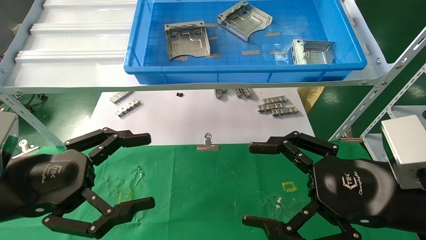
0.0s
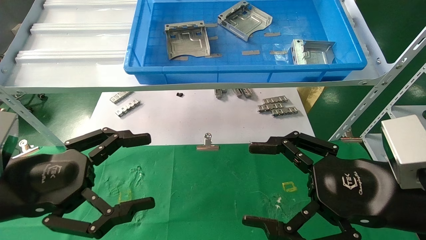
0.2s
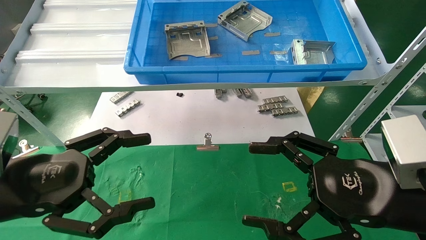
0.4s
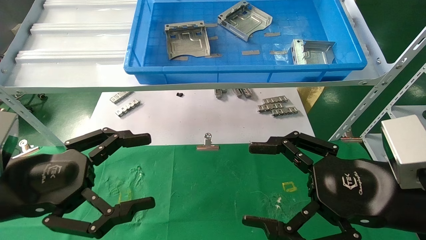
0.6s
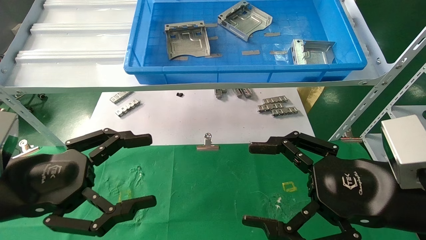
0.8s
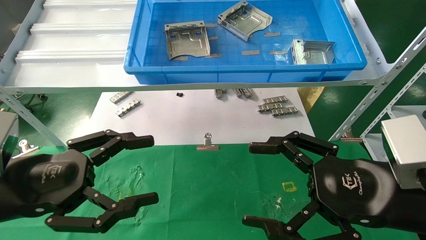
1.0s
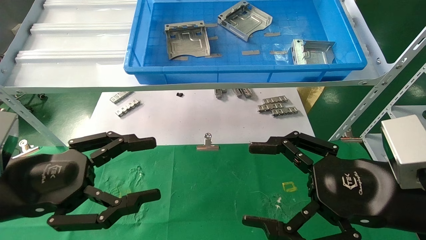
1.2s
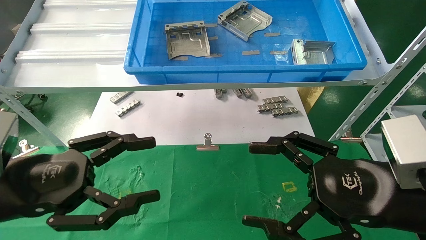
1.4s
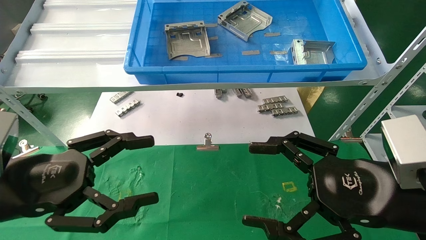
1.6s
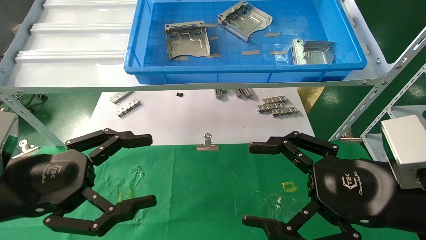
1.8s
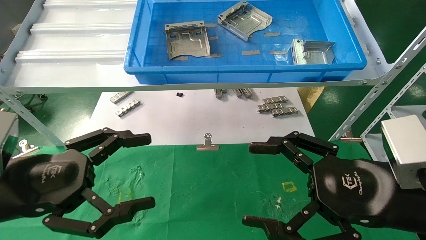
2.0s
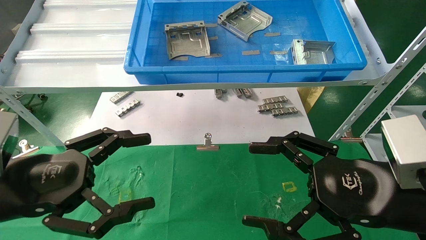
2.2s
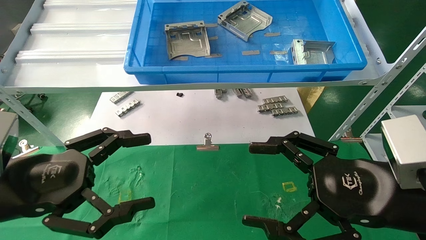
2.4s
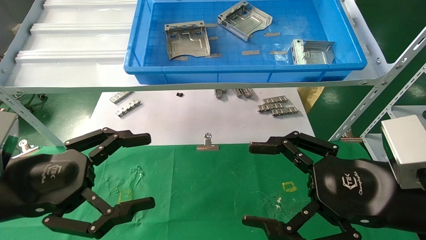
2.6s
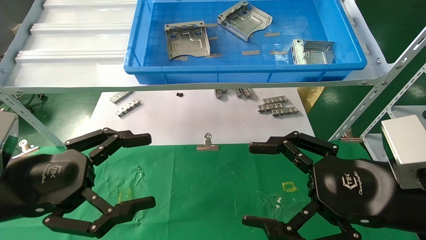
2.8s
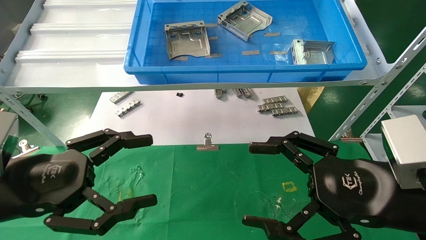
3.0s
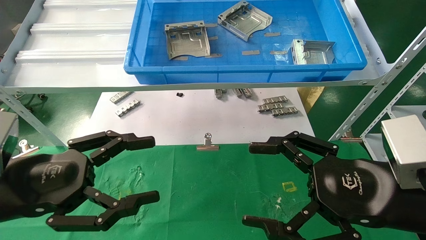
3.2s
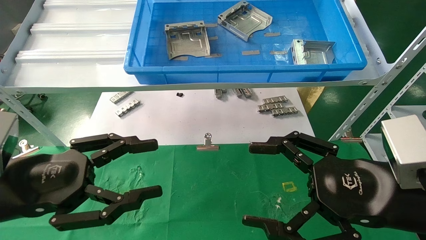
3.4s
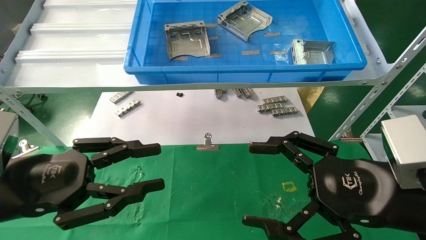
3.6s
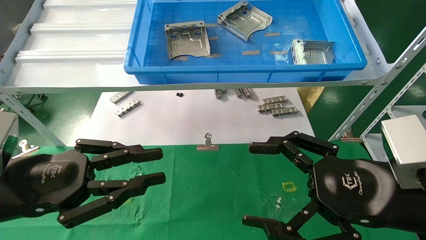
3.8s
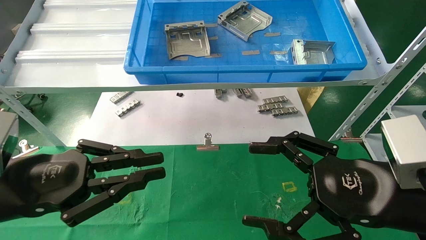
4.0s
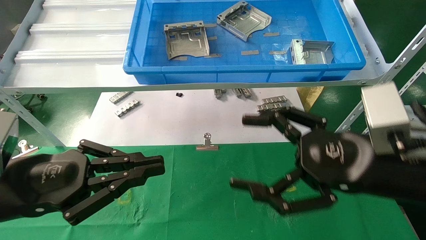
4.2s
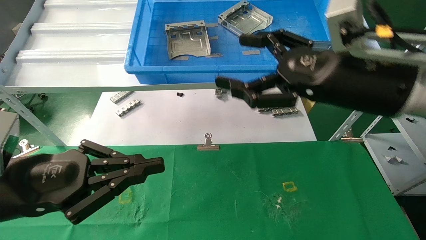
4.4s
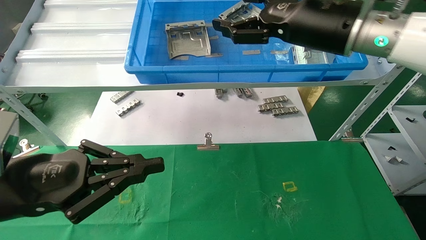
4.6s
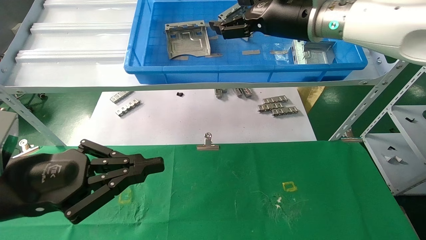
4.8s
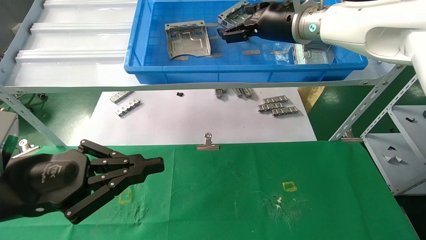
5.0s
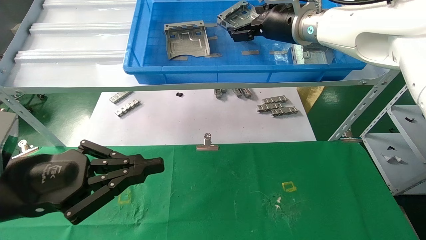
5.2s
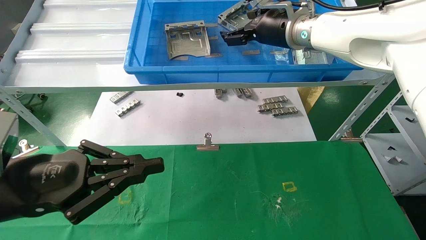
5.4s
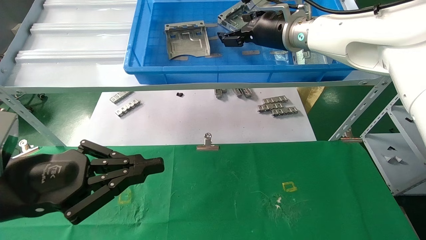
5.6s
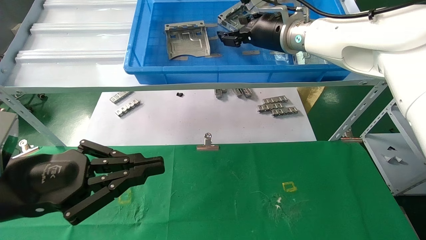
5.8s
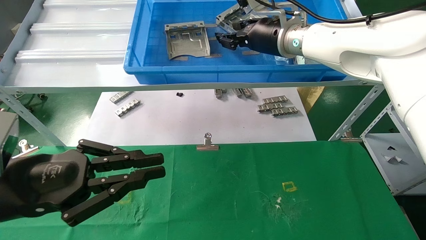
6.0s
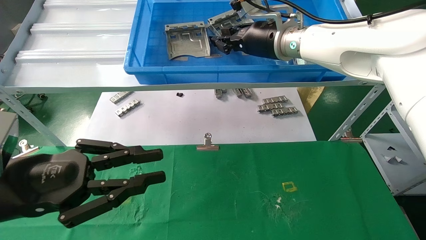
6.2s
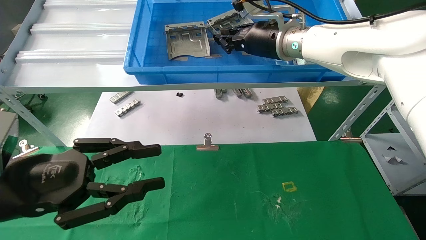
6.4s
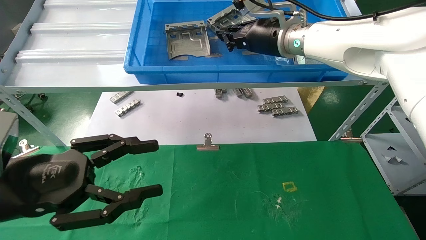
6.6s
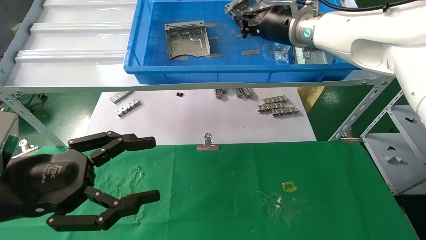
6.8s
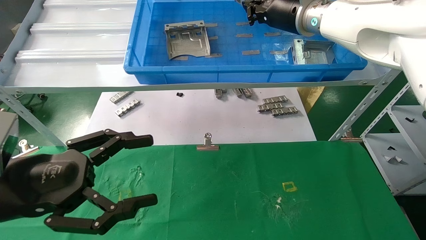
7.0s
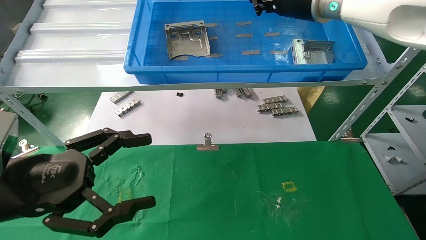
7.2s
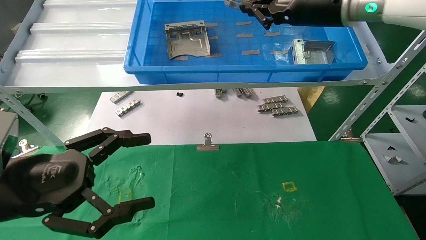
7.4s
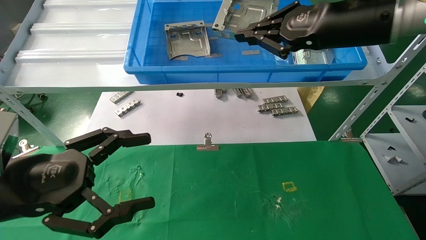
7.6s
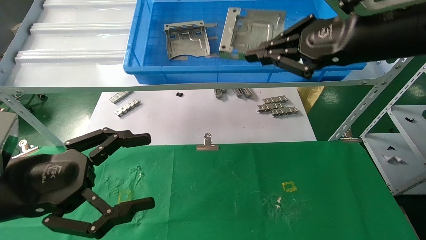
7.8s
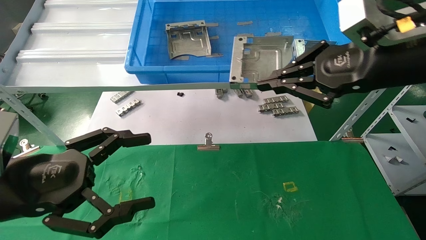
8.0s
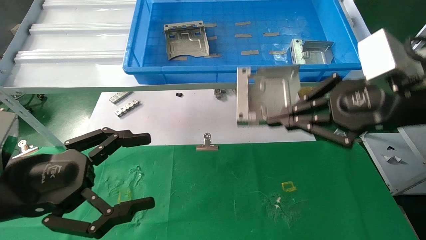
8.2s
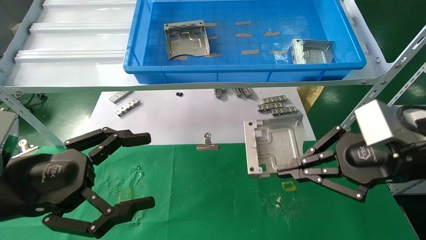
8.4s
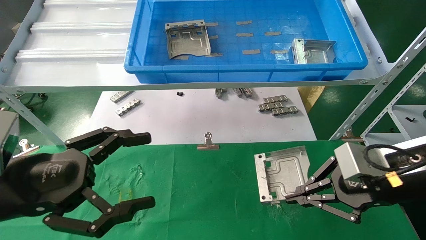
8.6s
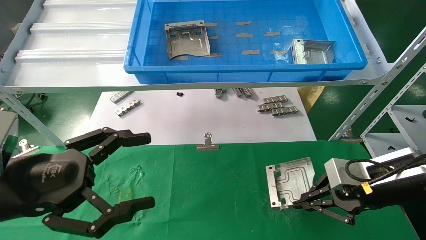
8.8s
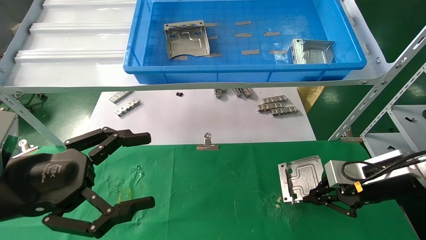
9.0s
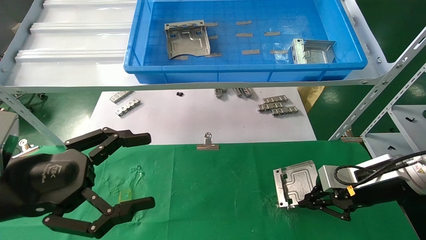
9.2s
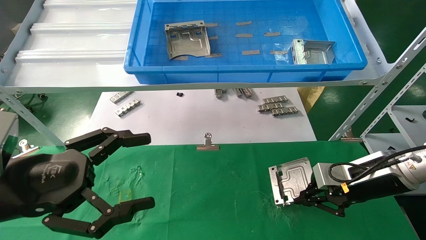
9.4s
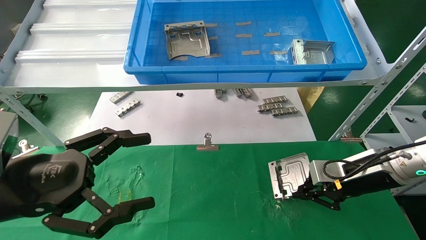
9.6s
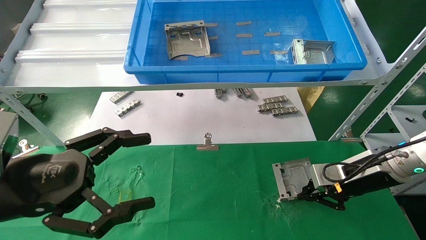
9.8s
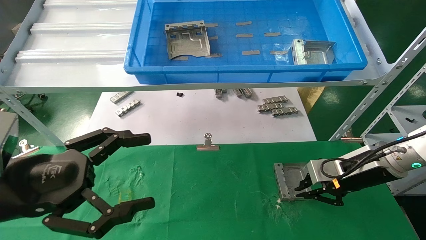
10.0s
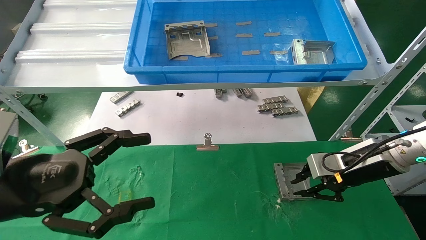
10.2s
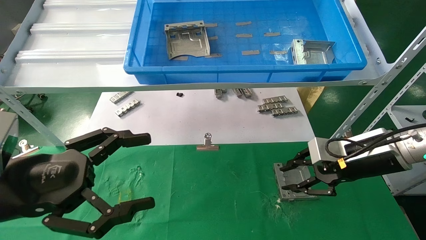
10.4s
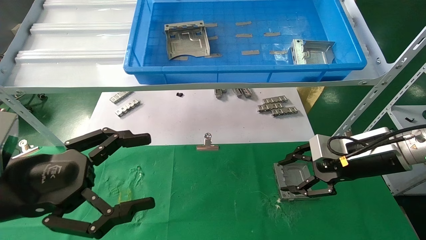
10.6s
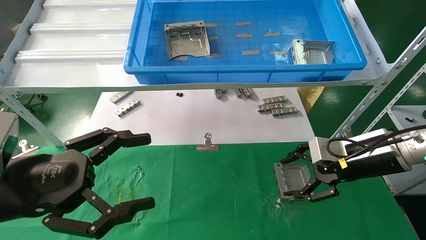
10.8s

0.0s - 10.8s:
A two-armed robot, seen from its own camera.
Task of the whole recording: use the mechanical arm to pick up the parts and place them on the table.
Step, 4.6s - 6.8s: Pick up the hard drive bracket from the feeding area.
Step, 7.0s - 10.2s: Place the hard drive bracket into the box.
0.0s - 3.0s: Neither gripper changes place.
3.0s - 4.6s: The right gripper is displaced upward and forward by some 25 cm; the left gripper closes its fingers.
4.6s - 6.2s: The right gripper shifts approximately 10 cm forward and to the left, and closes its fingers.
6.2s - 7.8s: The right gripper moves backward and to the right, approximately 20 cm, and closes its fingers, while the left gripper opens its fingers.
7.8s - 9.2s: The right gripper moves downward, about 25 cm.
9.2s - 10.8s: The right gripper opens its fingers.

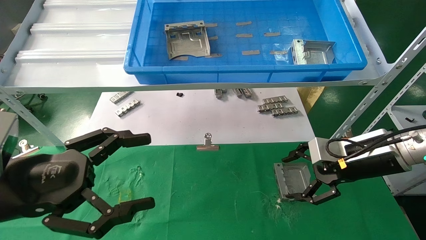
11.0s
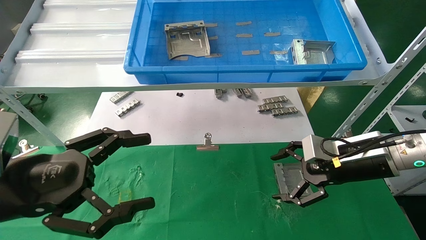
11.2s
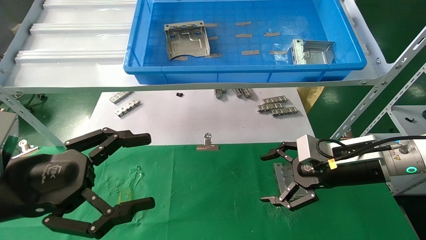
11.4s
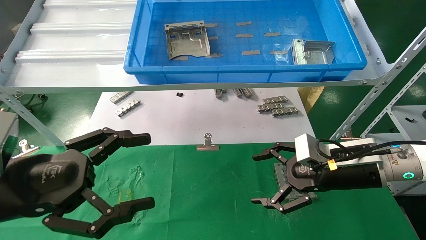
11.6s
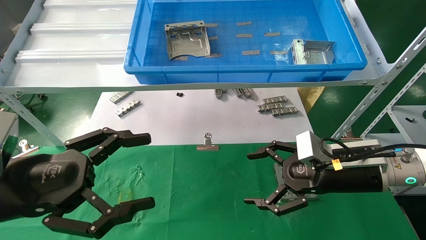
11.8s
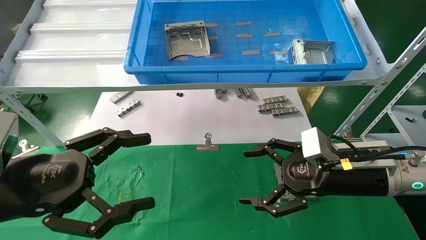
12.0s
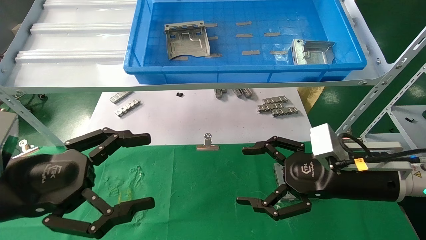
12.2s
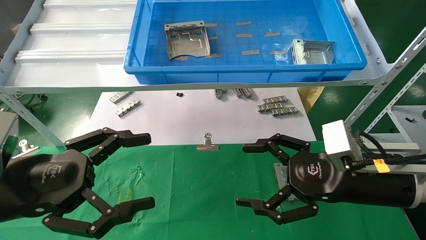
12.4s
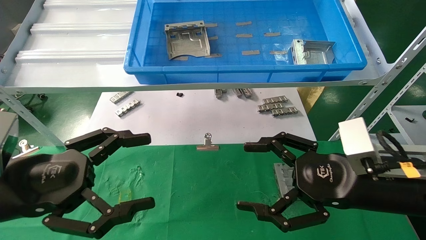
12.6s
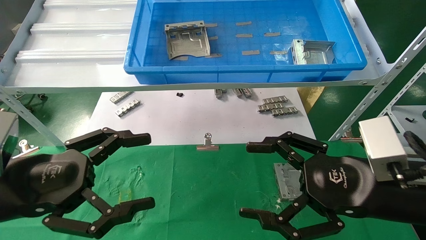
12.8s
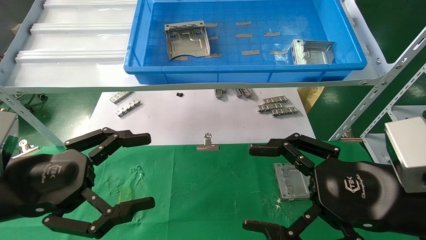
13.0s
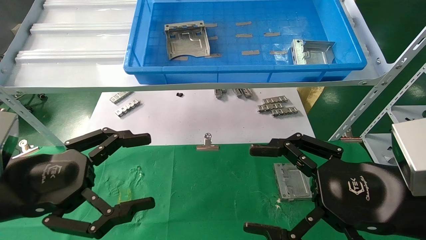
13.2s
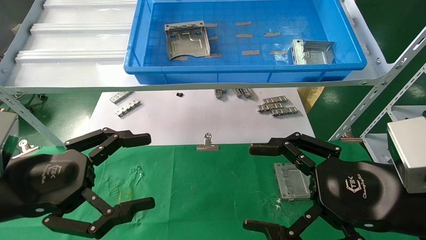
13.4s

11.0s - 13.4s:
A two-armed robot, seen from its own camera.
Task of the whole recording: use the mechanical arm to pick up the parts and place them on the table.
11.0s - 12.2s: The right gripper shifts about 10 cm backward and to the left.
12.2s - 13.4s: The right gripper moves backward, roughly 10 cm.
